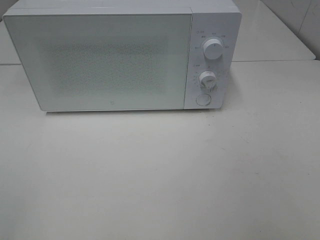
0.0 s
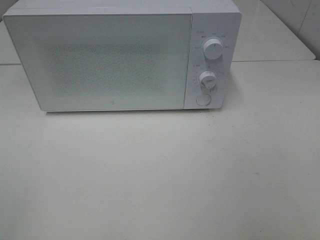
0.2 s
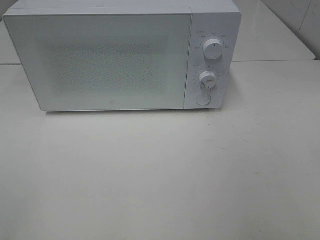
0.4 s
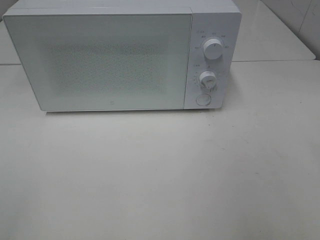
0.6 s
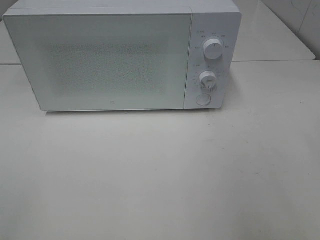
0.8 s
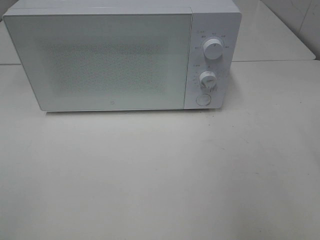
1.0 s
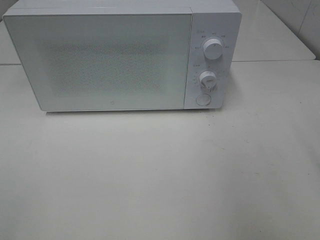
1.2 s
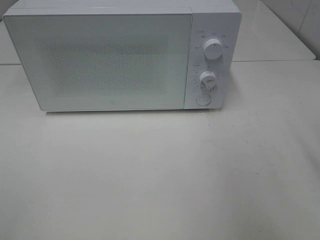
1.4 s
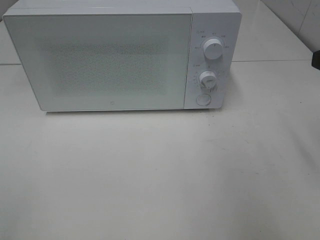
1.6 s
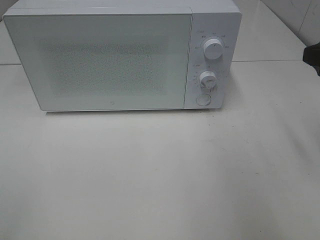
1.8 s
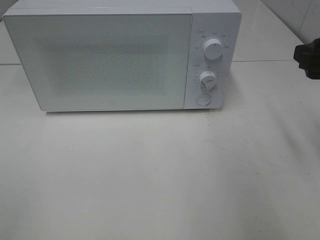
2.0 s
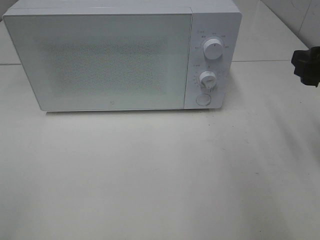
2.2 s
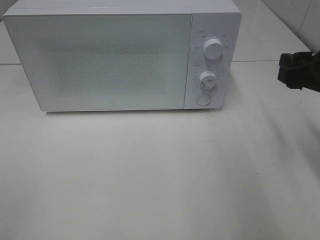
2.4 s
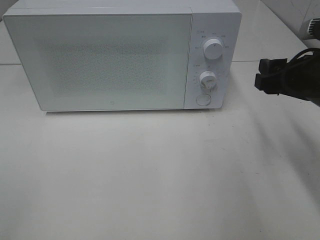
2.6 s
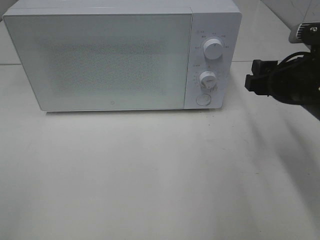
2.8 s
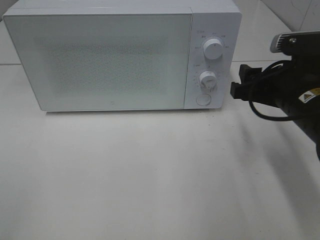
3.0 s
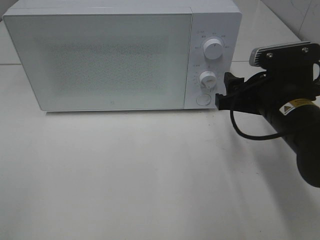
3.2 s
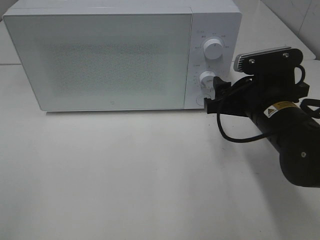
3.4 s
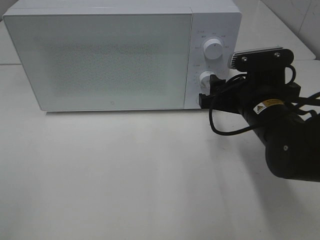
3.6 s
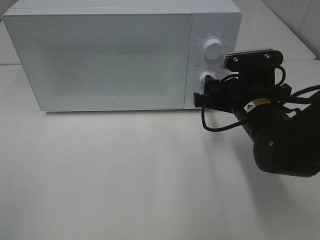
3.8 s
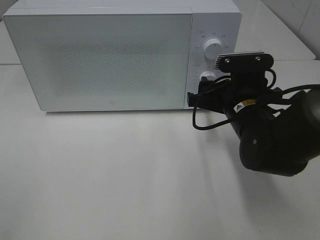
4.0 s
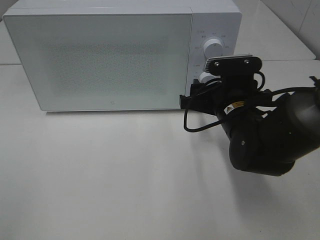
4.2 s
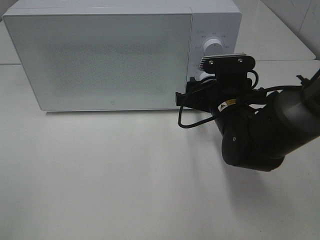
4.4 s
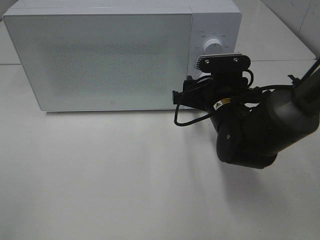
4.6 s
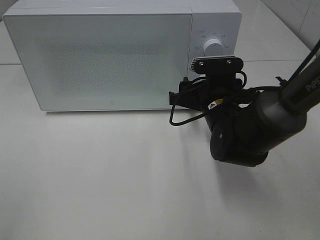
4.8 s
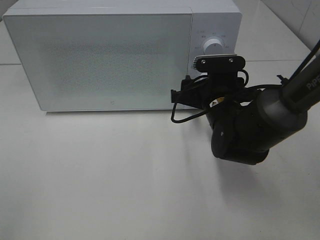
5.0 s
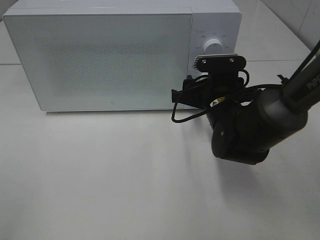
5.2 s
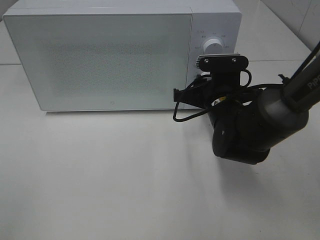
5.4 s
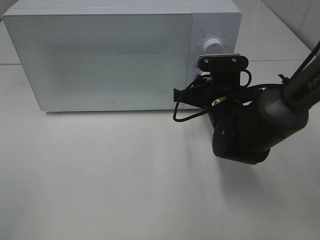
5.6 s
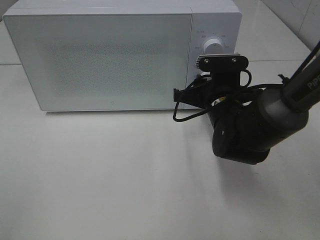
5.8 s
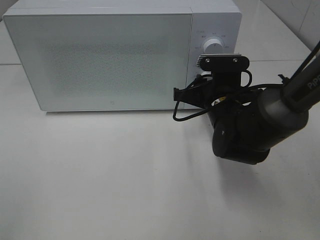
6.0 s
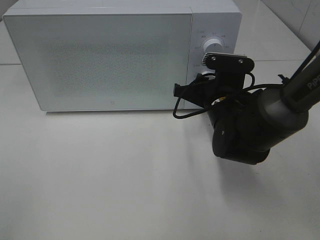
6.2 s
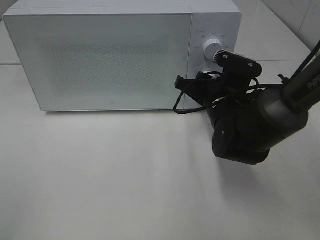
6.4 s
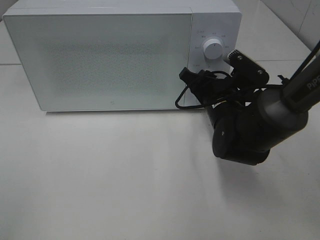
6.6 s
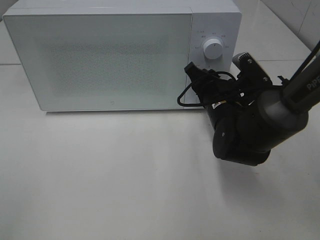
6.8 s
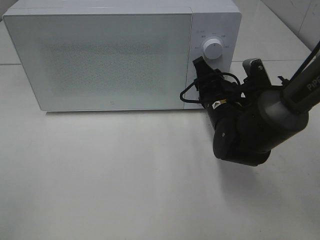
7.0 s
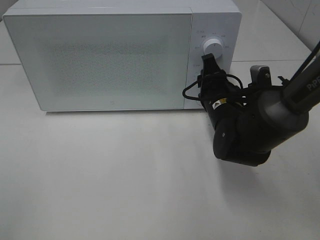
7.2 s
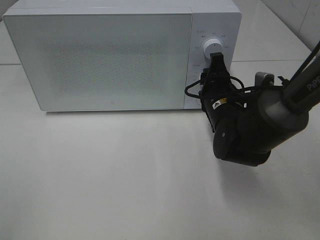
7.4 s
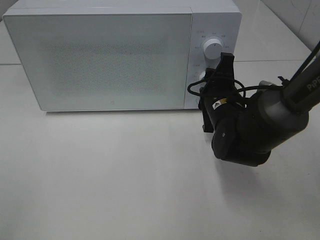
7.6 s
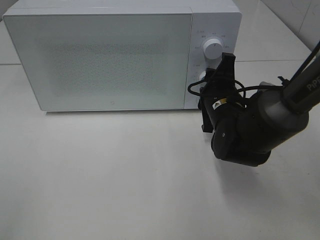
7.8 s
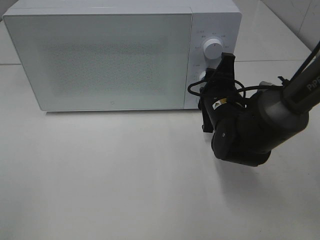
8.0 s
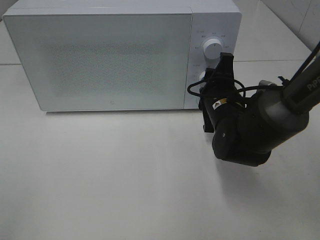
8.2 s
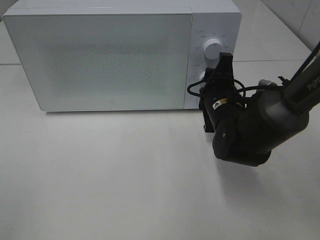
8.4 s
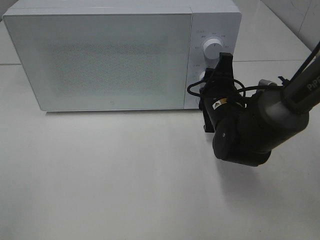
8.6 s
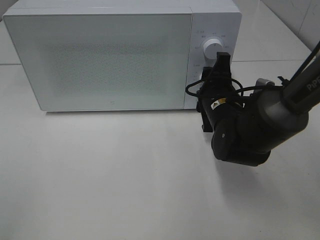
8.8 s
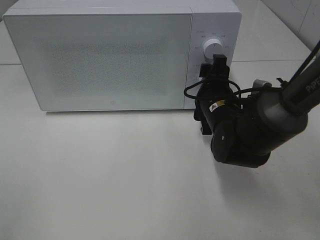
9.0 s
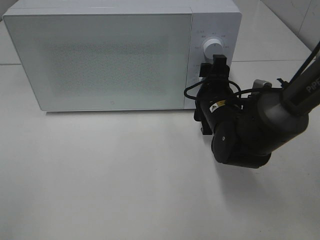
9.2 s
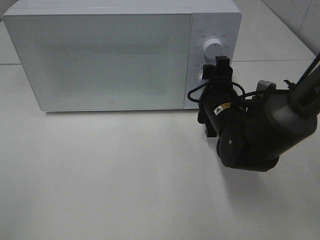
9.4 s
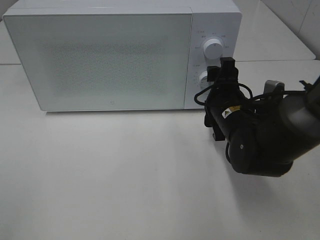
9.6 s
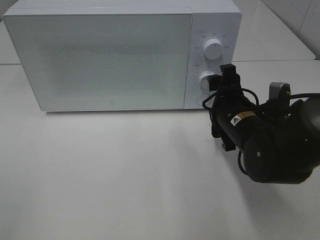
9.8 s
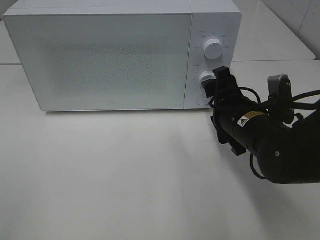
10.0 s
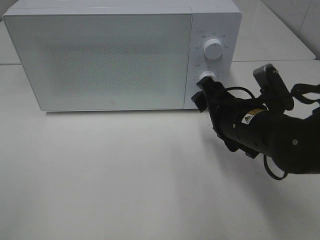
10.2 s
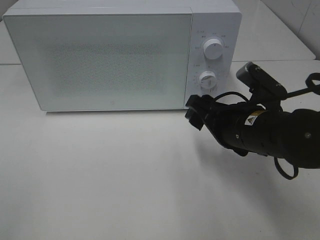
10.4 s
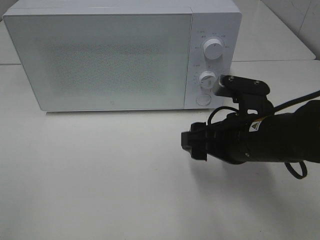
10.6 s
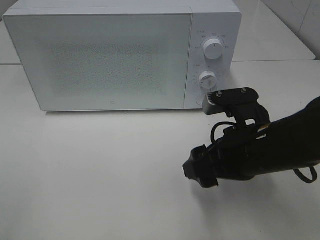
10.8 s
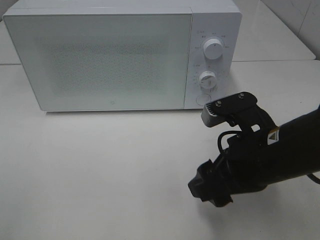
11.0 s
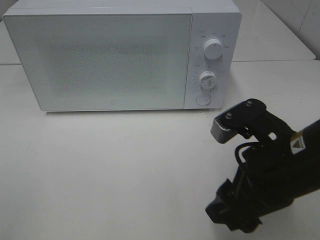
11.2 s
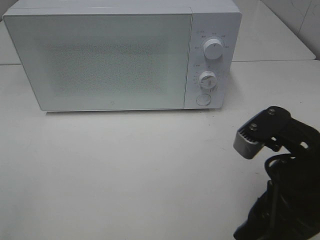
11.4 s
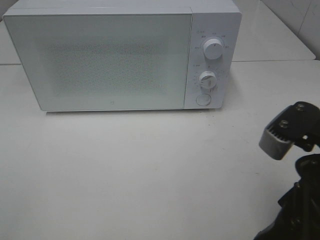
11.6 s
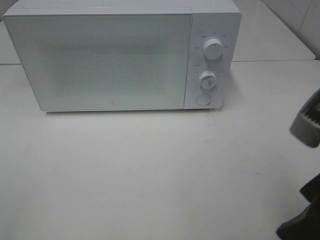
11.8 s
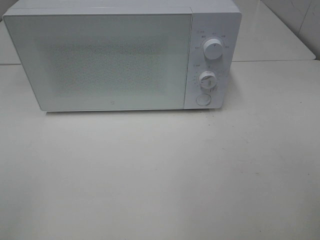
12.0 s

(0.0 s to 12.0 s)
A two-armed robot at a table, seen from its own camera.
Task of the whole recording: Heat Sandwich.
Step, 0.0 s - 9.8 s: Right hand: twist timer button.
1.6 s - 3.0 s: The right gripper heads downward and to the left, covering approximately 10 cm.
3.0 s - 4.4 s: The right gripper goes approximately 10 cm to the left, downward and forward.
4.4 s - 6.0 s: The right gripper closes its fingers.
7.6 s - 9.0 s: The right gripper opens up.
9.0 s - 10.4 s: The right gripper shifts about 10 cm backward.
10.4 s - 12.0 s: The right gripper goes about 20 cm backward, upward and to the right.

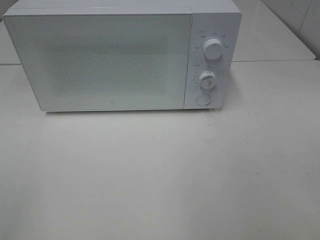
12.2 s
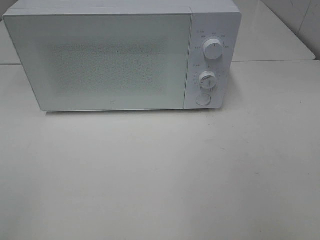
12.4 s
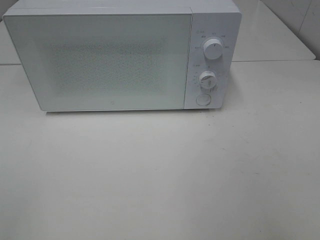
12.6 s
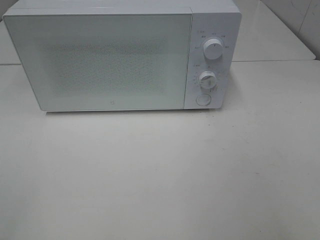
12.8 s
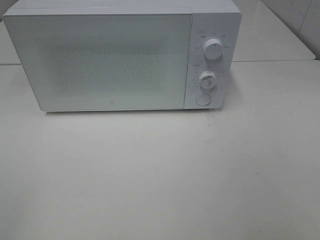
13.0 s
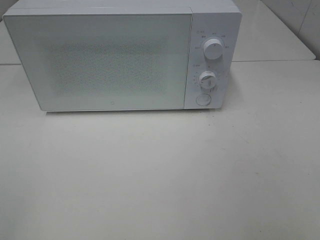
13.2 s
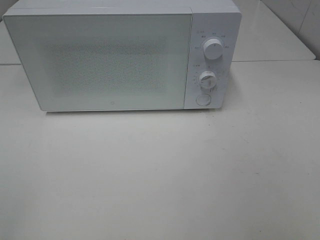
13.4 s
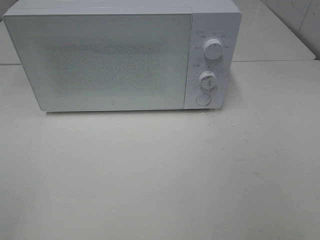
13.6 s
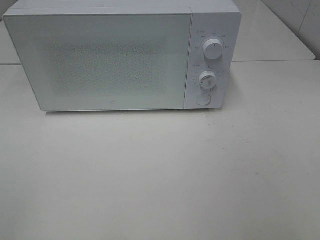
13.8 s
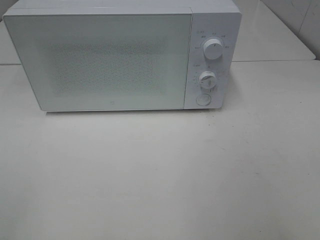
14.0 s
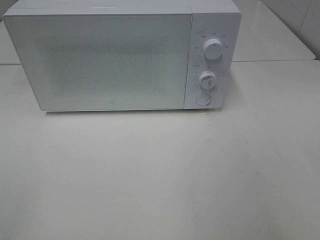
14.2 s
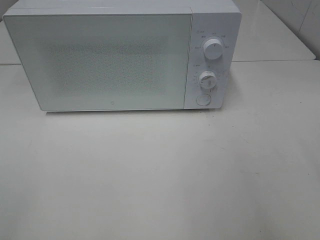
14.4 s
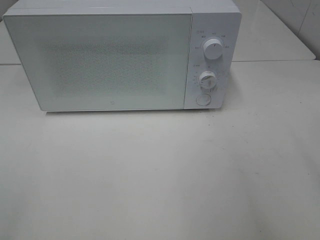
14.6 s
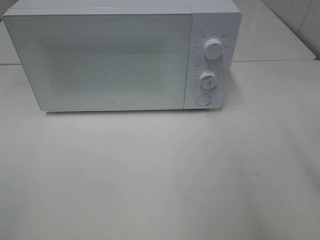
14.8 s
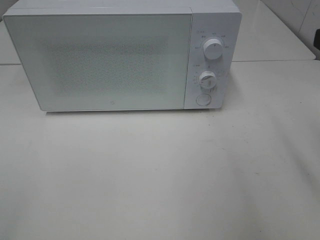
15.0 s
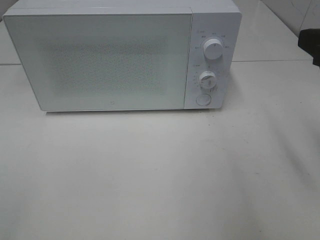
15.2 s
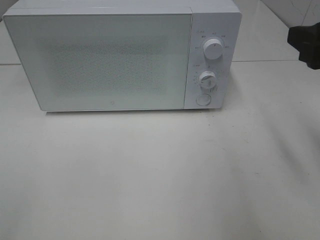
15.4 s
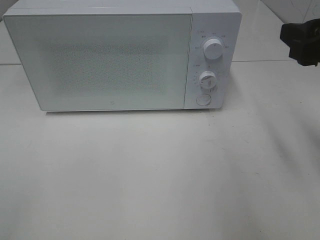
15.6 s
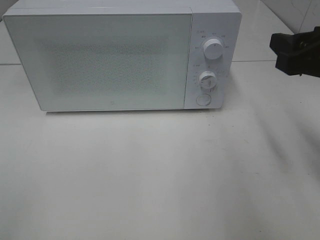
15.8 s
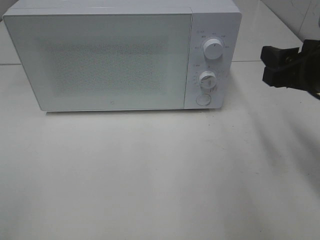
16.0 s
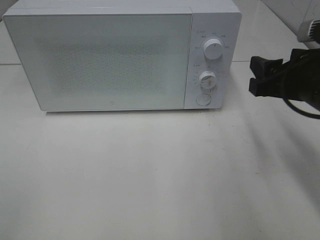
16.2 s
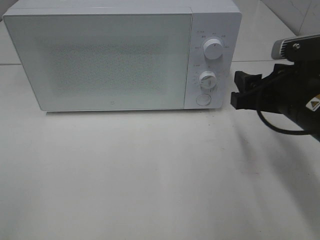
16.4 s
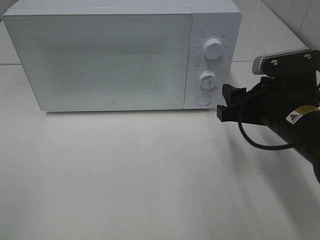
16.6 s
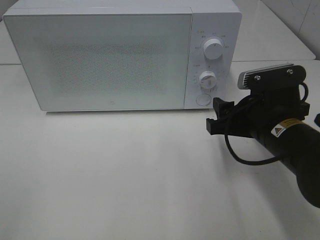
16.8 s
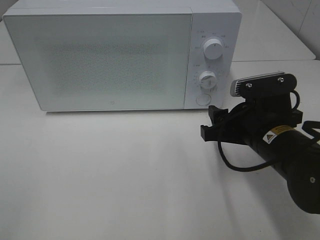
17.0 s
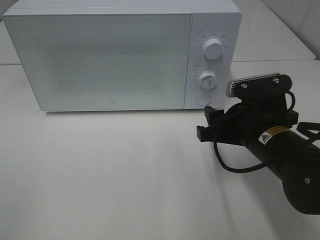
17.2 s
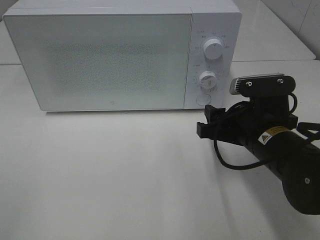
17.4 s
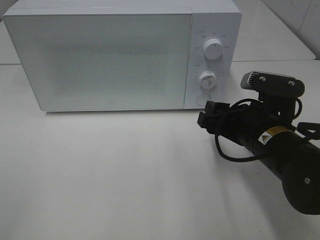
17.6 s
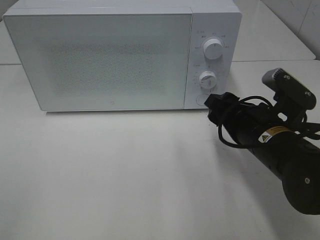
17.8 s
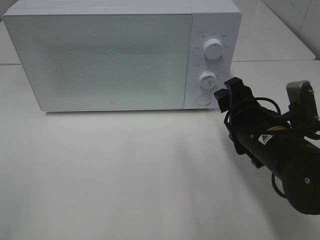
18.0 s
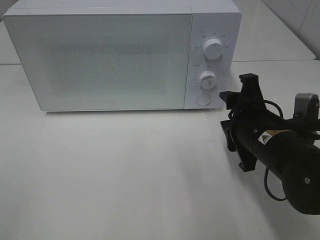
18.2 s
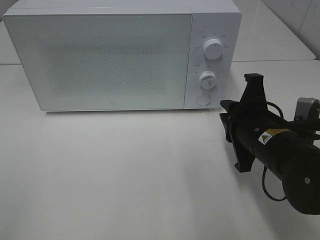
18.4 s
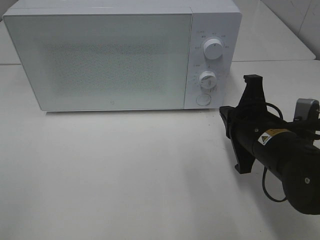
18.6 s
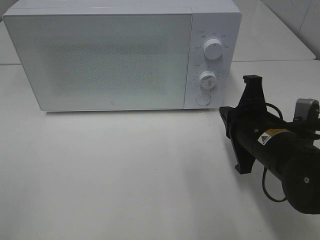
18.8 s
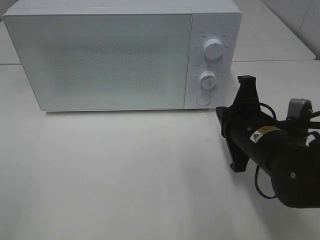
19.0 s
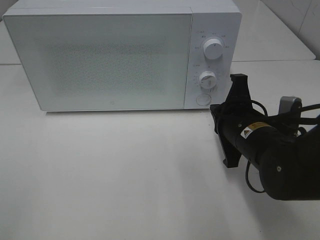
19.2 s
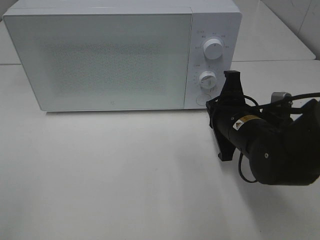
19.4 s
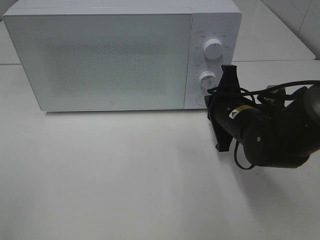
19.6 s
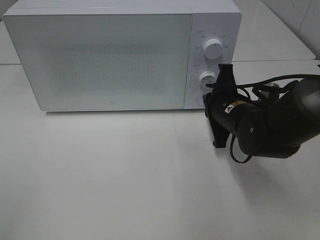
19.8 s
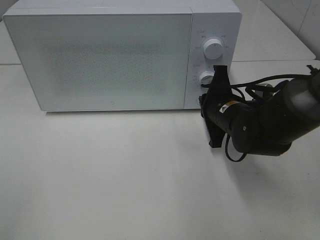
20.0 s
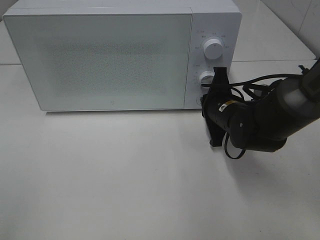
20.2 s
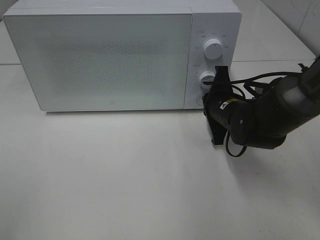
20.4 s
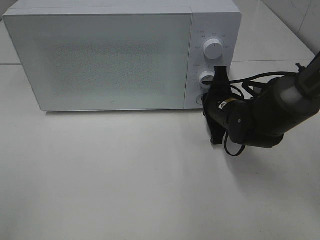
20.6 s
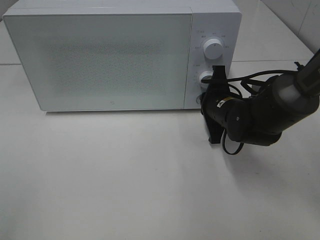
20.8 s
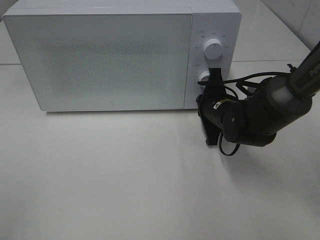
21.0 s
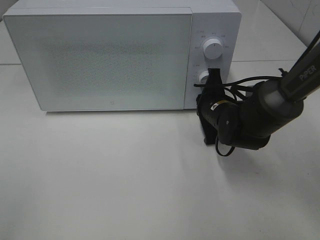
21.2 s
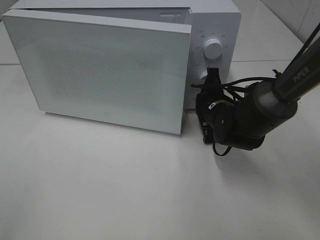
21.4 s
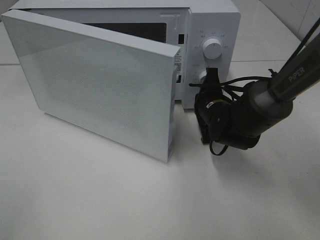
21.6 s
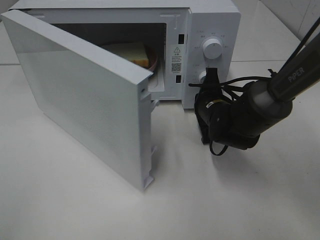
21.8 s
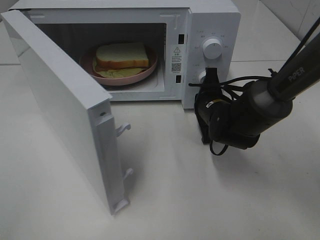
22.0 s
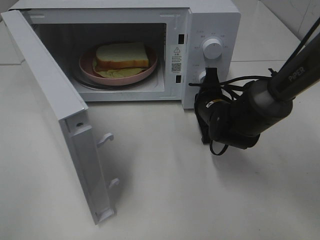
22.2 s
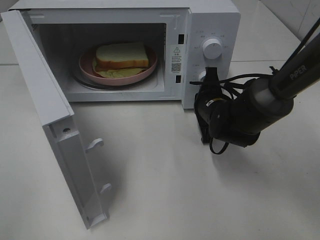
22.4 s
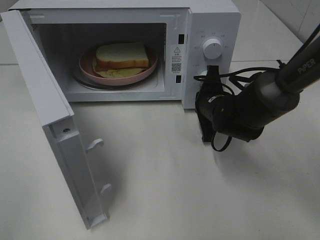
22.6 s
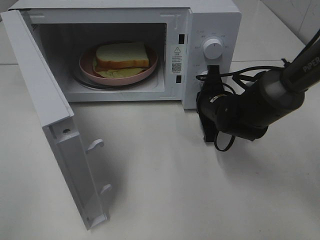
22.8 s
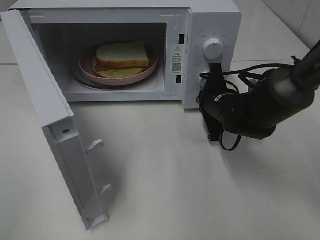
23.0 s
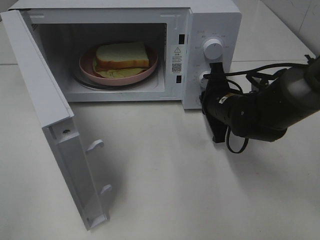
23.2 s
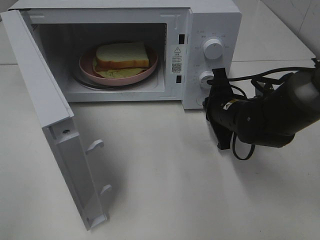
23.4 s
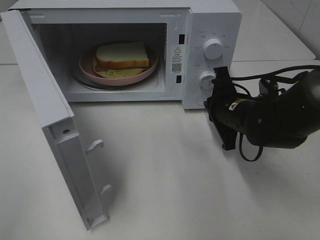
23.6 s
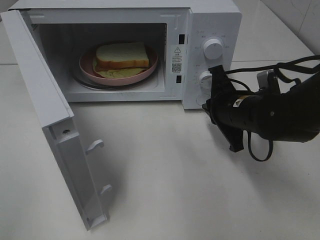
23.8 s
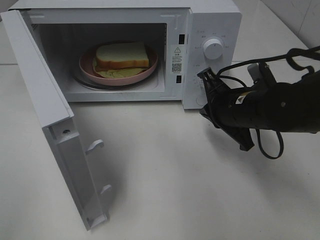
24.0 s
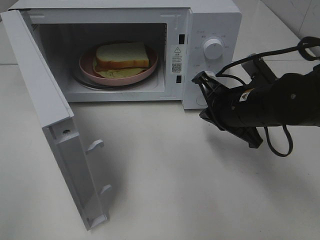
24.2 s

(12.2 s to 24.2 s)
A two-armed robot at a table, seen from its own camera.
Task of the whole recording: Heat Sandwich.
Step, 12.2 s - 23.8 s: Right hand: press the switch.
13.8 s - 15.2 s: The right gripper heads forward, covering roughly 20 cm.
15.2 s - 16.6 s: The right gripper shifts approximately 15 cm downward, to the left and forward.
18.2 s - 19.8 s: The right gripper is displaced forward by some 10 cm, and closes its fingers.
19.8 s - 21.2 s: The right gripper ends up some 5 cm from where it was.
22.6 s - 24.2 s: The right gripper heads backward and upward, covering about 10 cm.
